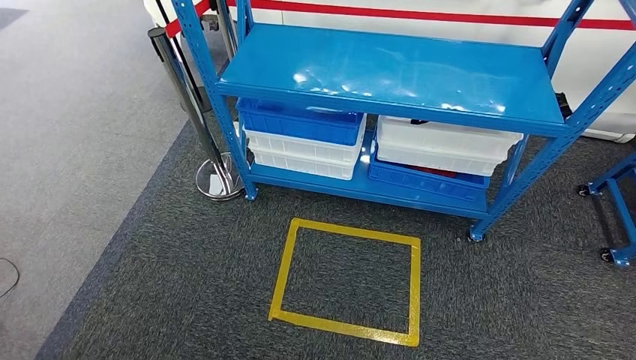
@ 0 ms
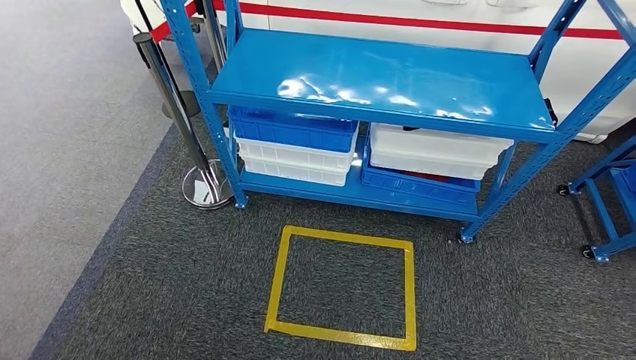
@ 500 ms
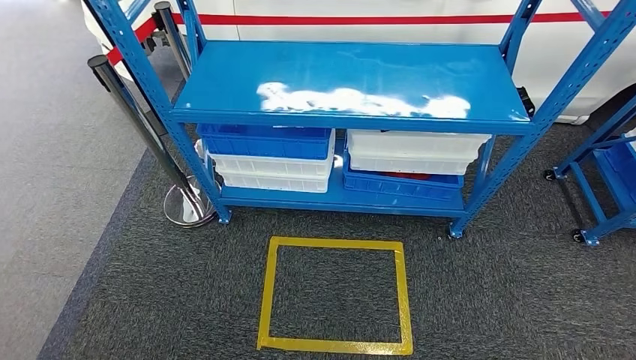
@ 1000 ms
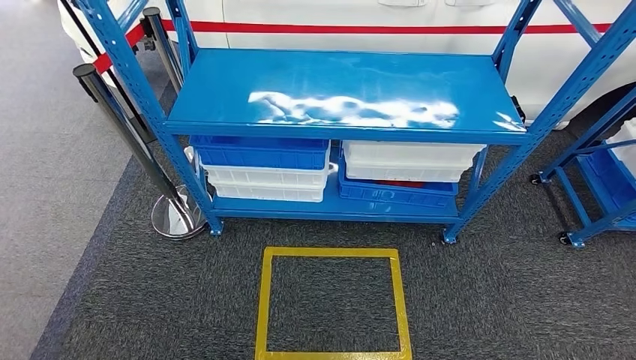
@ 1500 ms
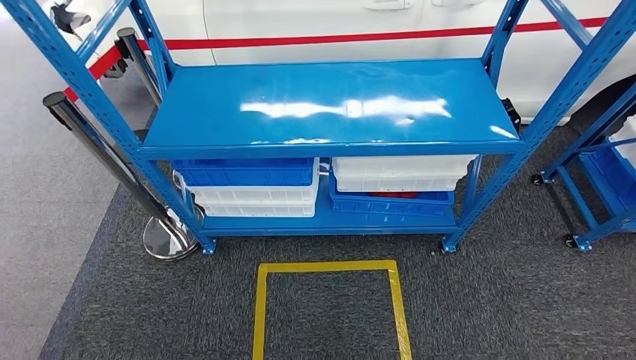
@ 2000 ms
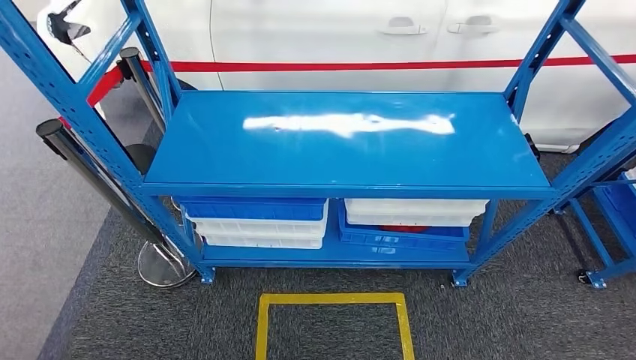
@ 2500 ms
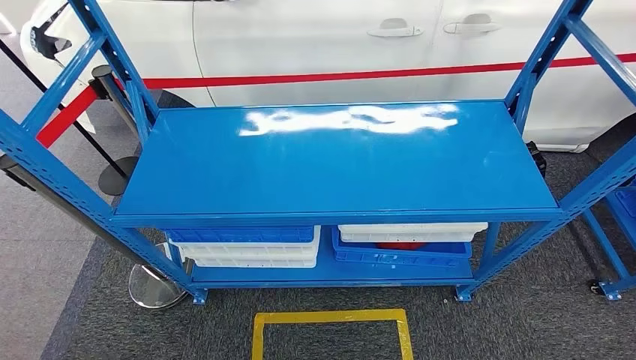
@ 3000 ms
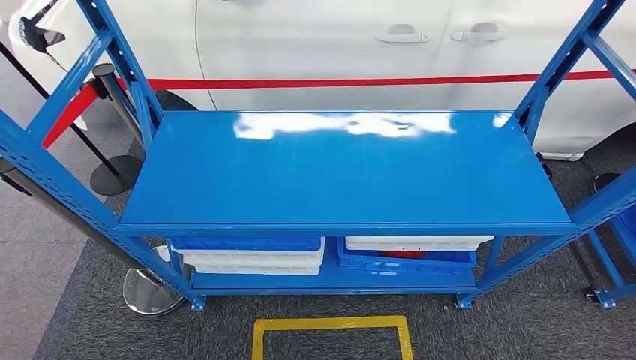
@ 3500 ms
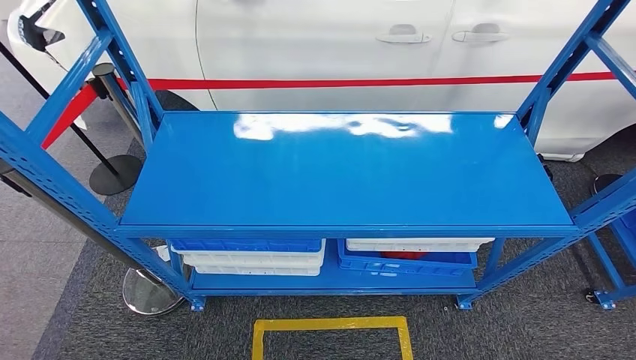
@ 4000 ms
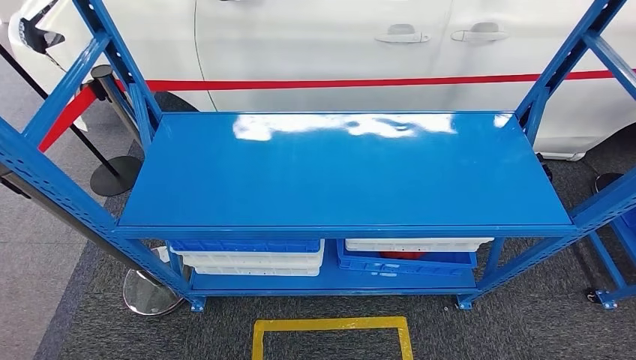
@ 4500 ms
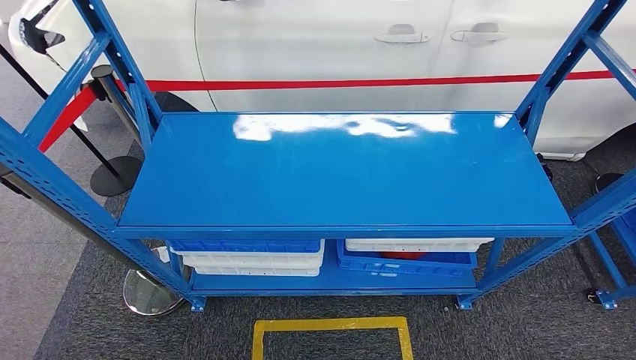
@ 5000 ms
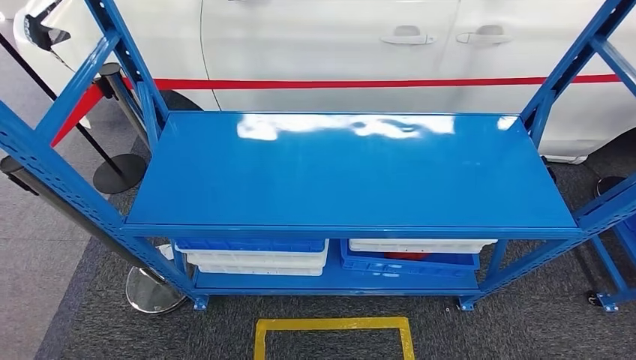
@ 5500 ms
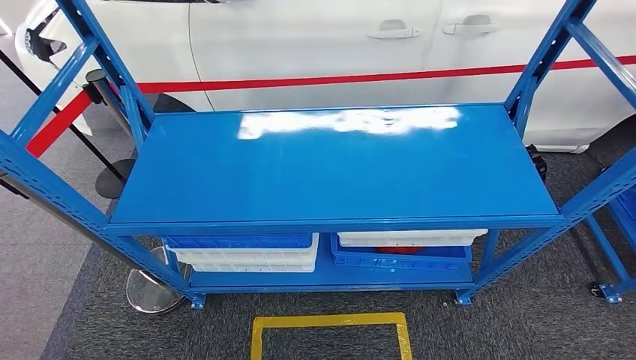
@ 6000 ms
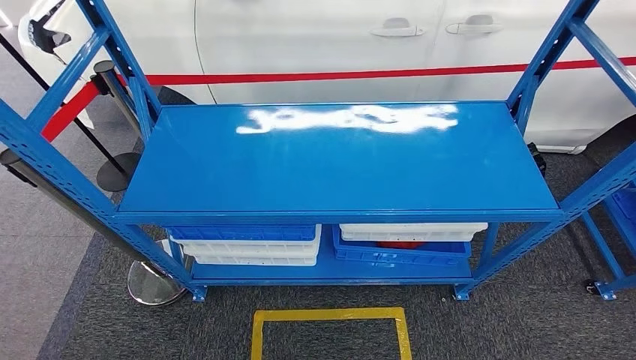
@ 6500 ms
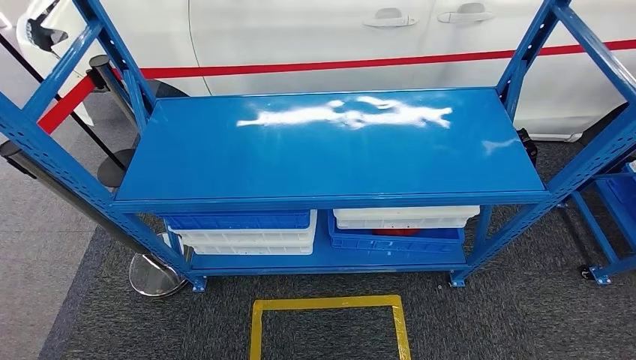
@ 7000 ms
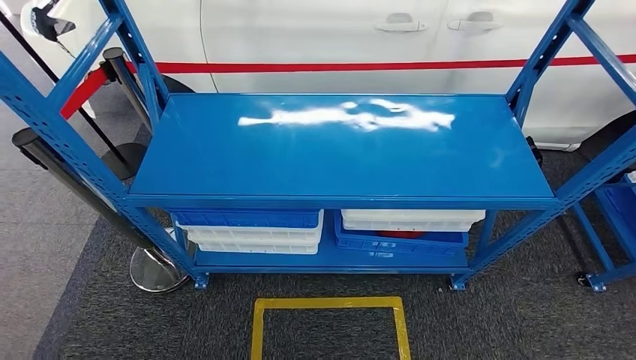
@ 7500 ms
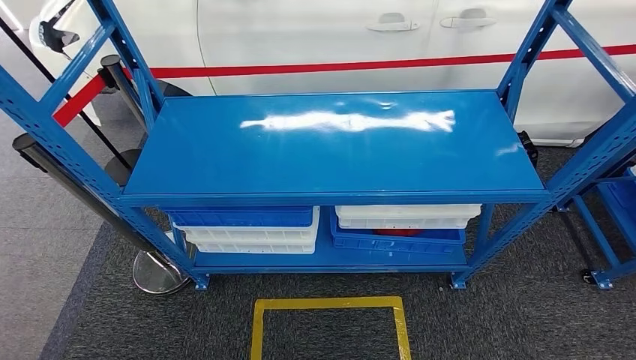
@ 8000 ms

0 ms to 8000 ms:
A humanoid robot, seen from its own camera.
Step, 0 ms to 8000 ms: Move to the initial position of the shelf.
